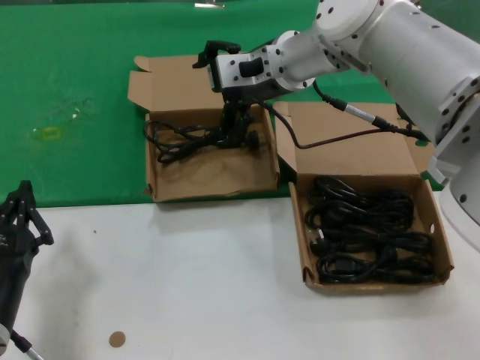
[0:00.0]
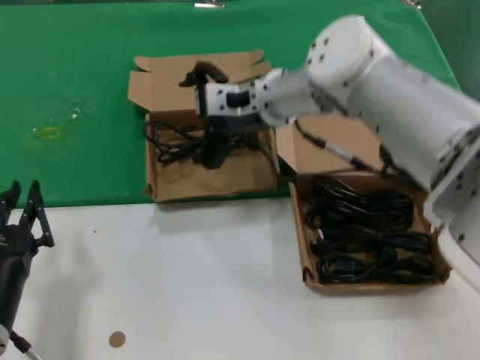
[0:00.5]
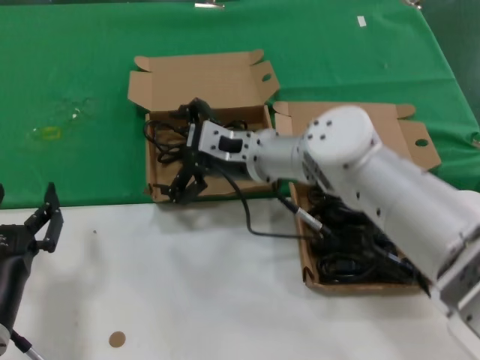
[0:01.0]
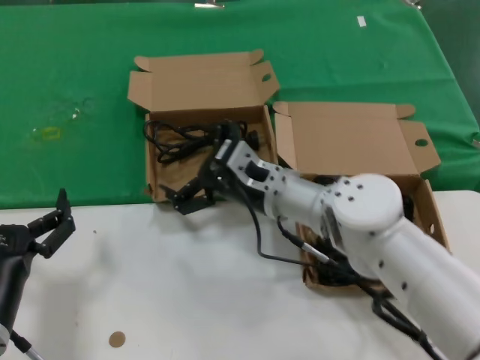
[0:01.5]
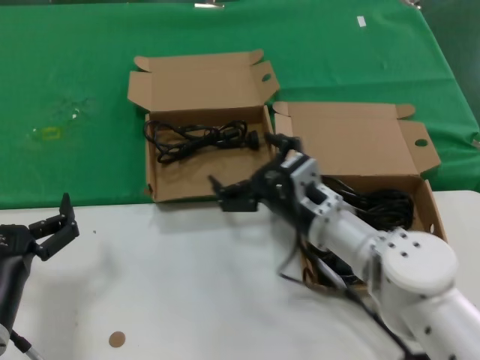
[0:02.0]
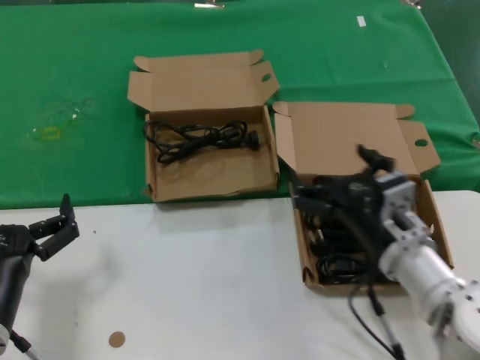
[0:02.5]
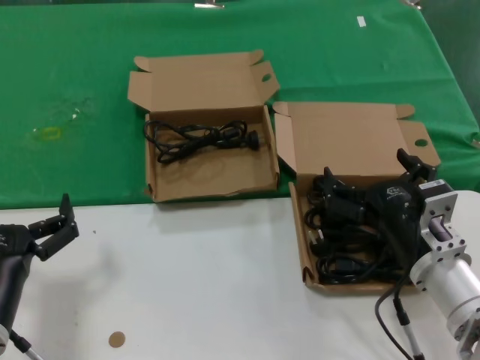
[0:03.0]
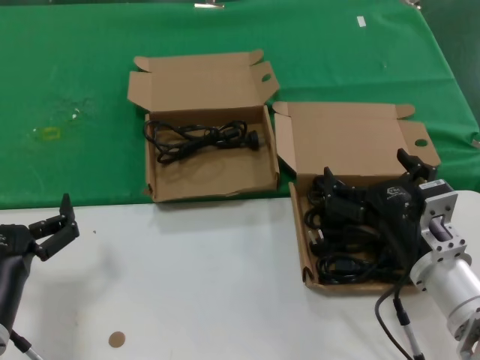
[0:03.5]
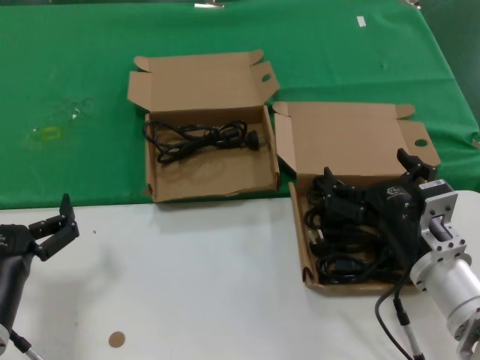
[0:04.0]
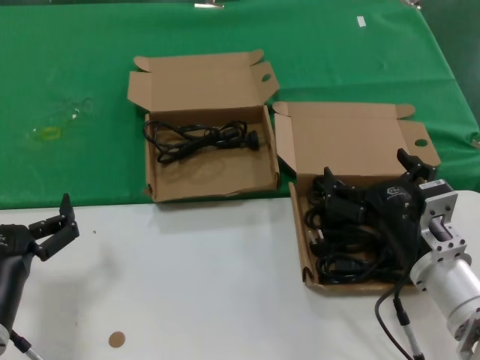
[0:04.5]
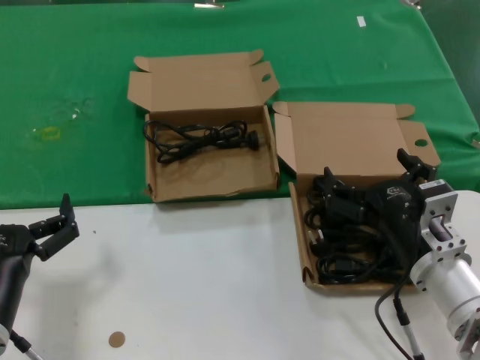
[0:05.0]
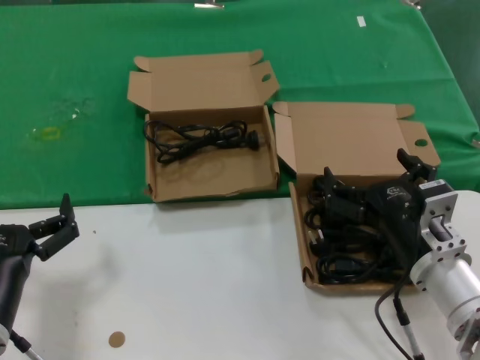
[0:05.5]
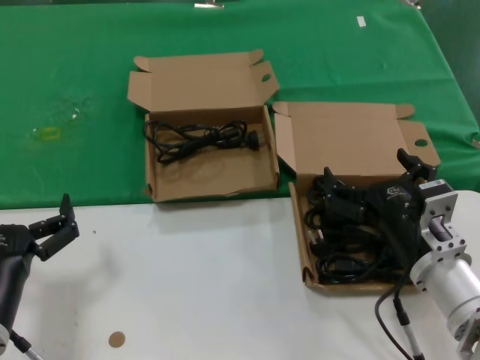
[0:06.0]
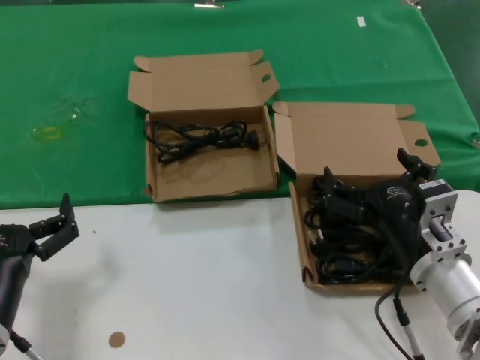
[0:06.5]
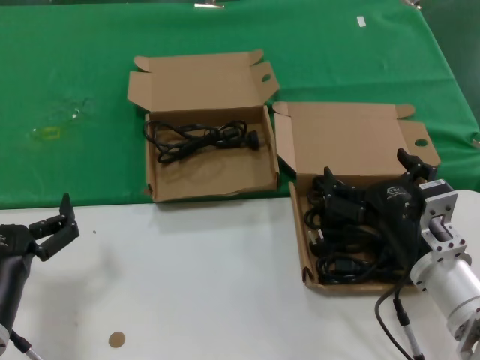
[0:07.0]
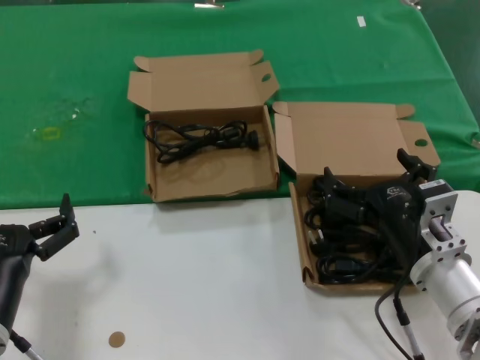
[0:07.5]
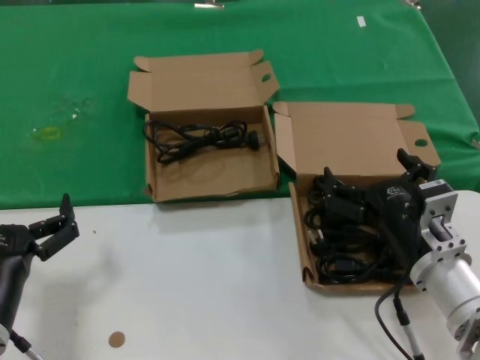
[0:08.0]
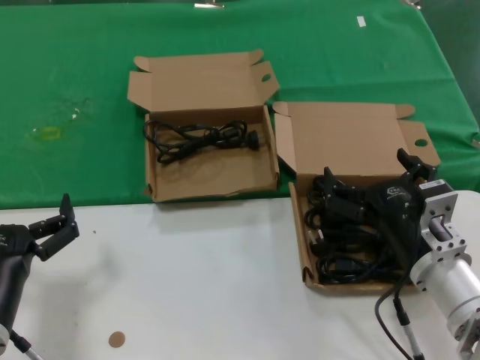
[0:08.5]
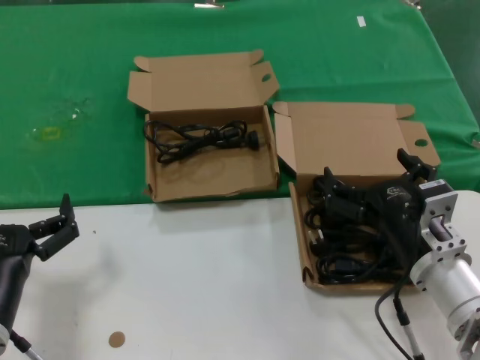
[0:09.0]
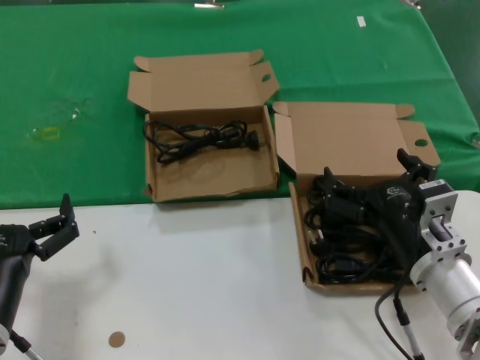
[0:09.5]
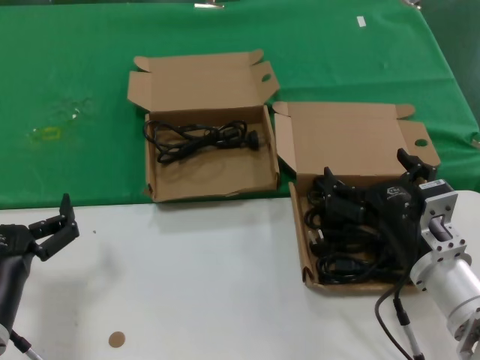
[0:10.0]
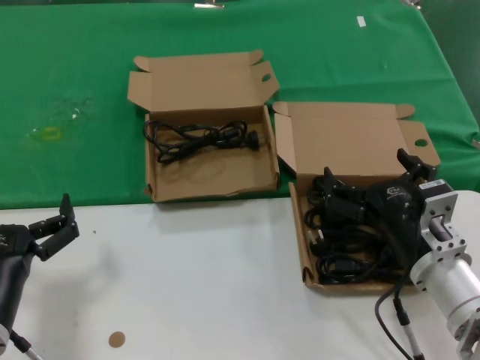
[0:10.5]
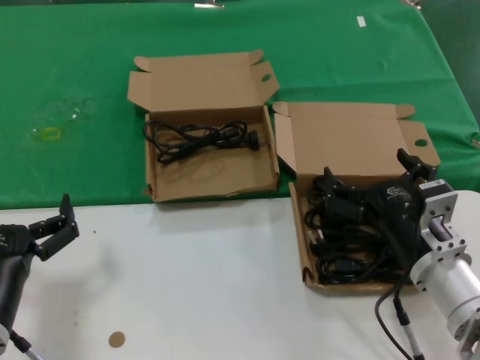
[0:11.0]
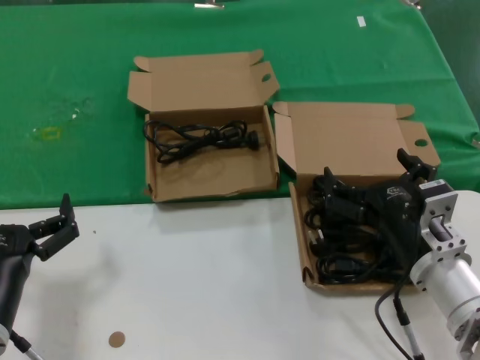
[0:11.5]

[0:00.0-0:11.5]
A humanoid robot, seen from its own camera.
Task of the whole recording: take the parts from the box containing them and put them into an empty box.
0:00.0 to 0:02.0: The right hand moves downward and backward, roughly 25 cm.
0:02.0 to 0:04.0: The right hand moves backward and to the right, about 15 cm.
0:04.0 to 0:11.5: Neither hand changes place.

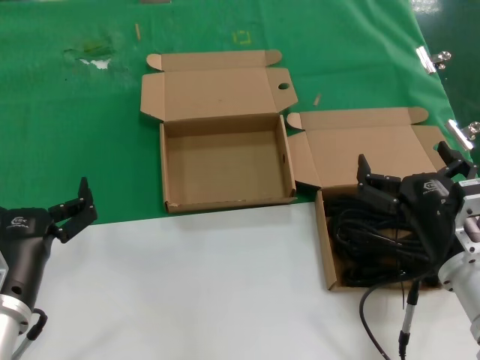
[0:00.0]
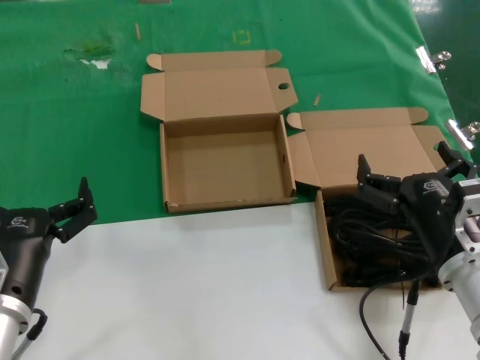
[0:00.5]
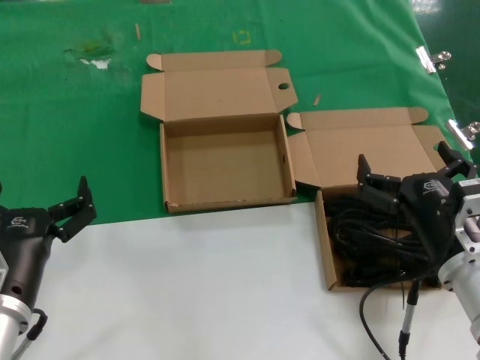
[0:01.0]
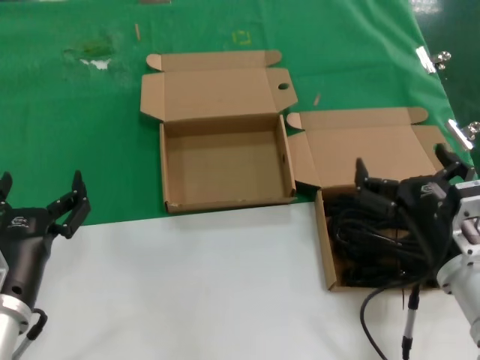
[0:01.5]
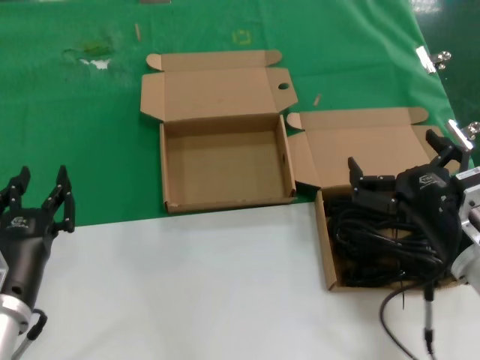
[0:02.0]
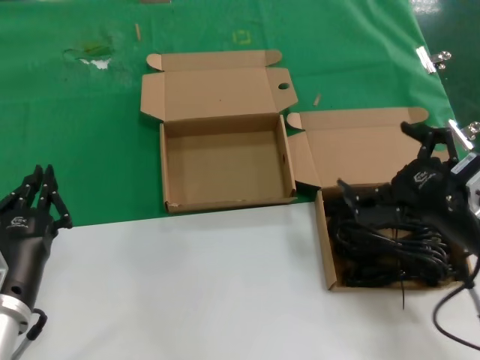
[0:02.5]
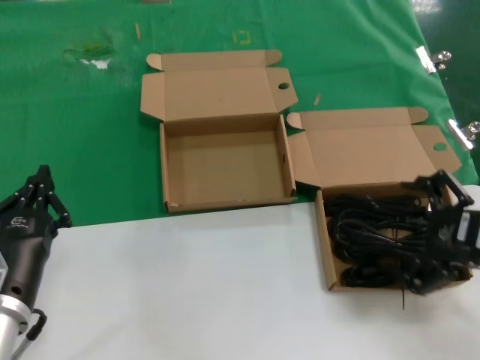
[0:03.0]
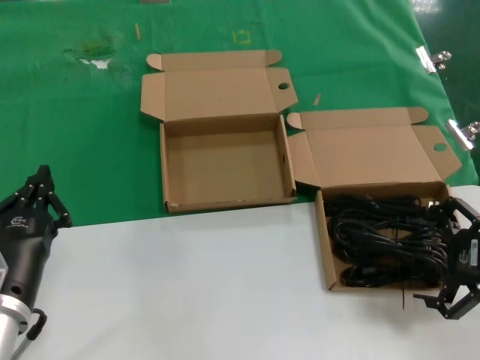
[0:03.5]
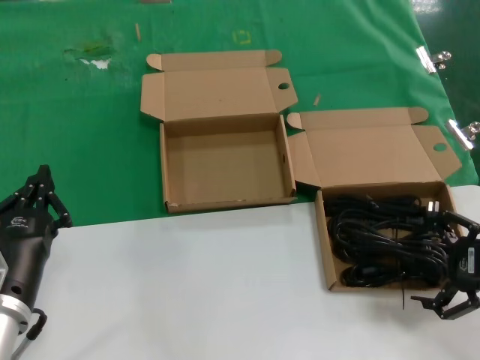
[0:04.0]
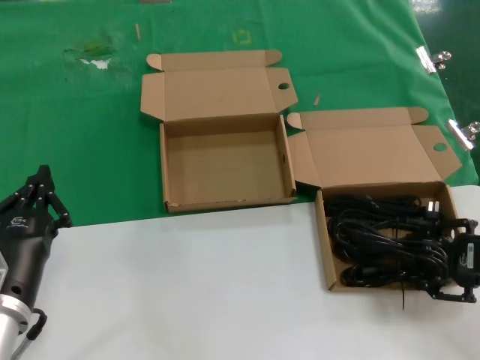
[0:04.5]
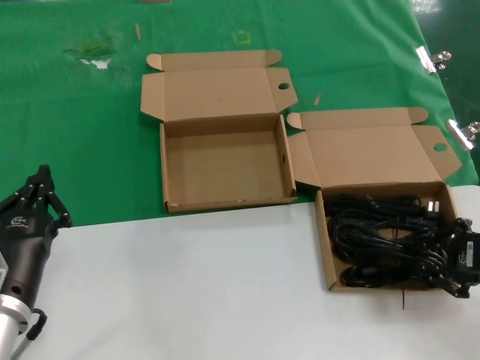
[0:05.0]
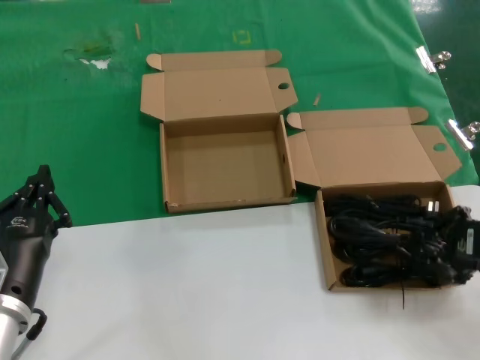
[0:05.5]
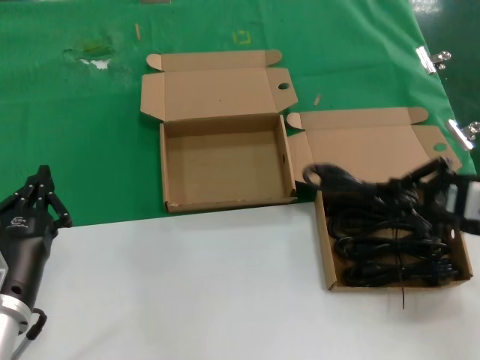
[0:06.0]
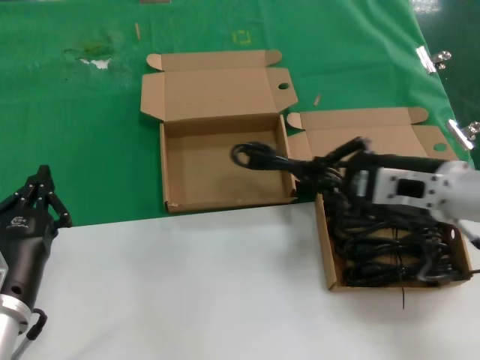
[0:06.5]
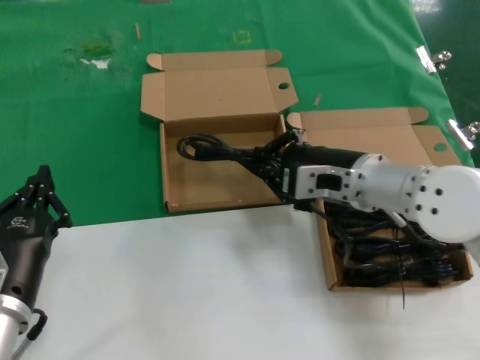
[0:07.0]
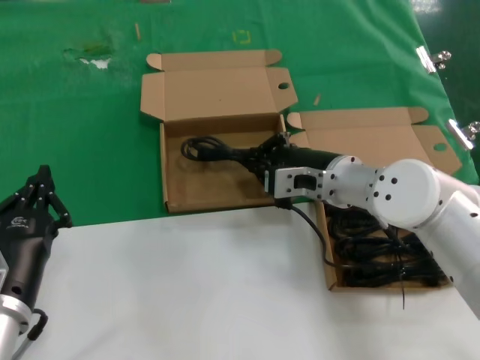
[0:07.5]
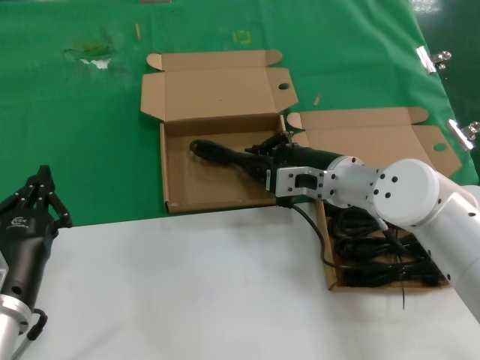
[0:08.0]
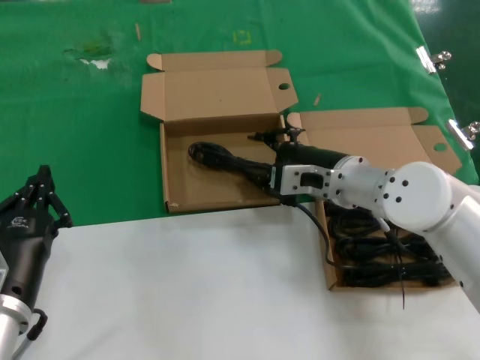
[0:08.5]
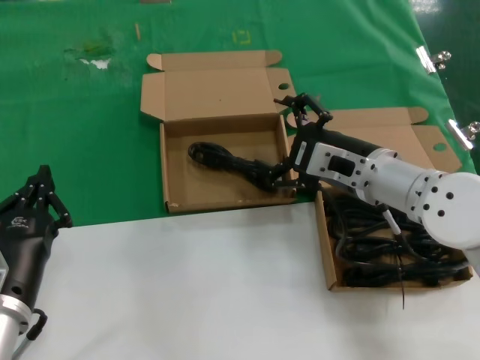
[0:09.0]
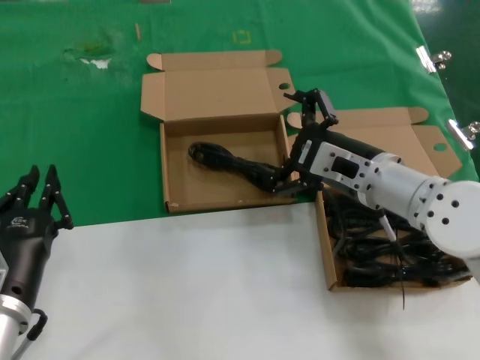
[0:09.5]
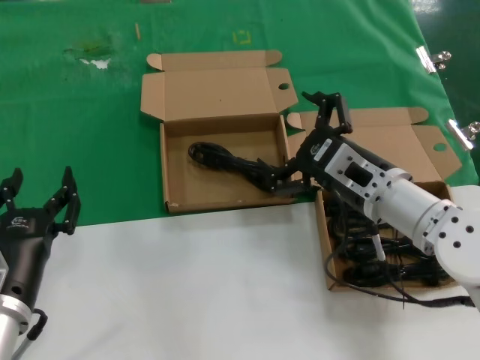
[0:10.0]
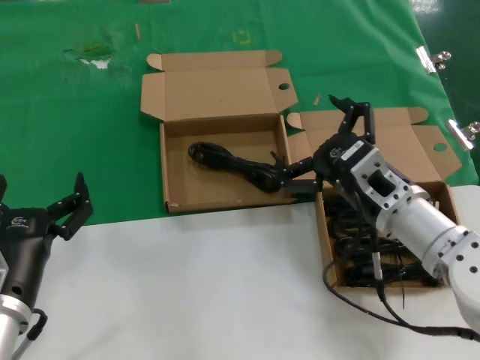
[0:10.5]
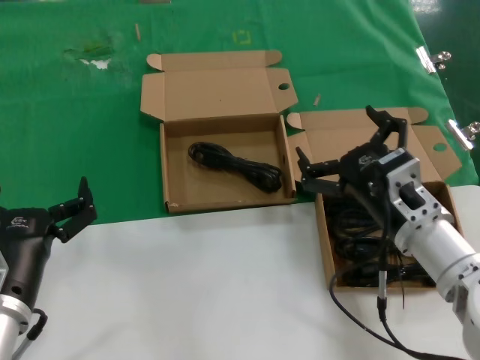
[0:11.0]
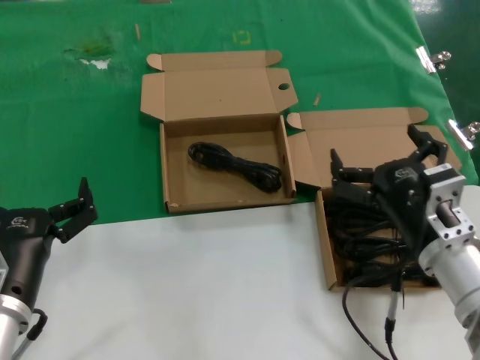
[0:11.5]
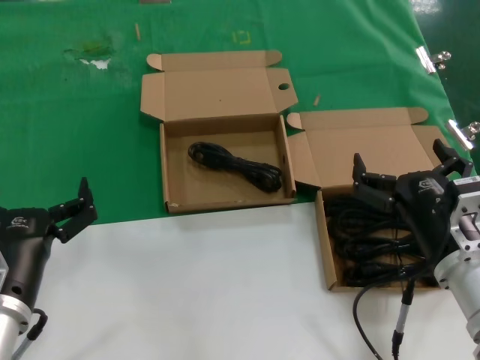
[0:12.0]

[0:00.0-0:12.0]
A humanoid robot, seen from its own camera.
Task of the whole recording: take the parts from the box containing them and put them into an empty box.
Step, 0:00.0 to 0:05.0: Grasp the data cable.
Step, 0:05.5 to 0:08.0: Place the data cable in the another box.
0:00.0 to 0:02.0: The hands stay close to where they were, moving slightly.
0:02.0 to 0:04.0: The right hand is displaced to the right and upward by approximately 15 cm.
0:04.0 to 0:06.0: The right hand moves some 5 cm.
0:06.0 to 0:08.0: The right hand shifts approximately 25 cm to the left, forward and downward.
0:08.0 to 0:10.0: The right hand is displaced backward by about 10 cm.
0:10.0 to 0:12.0: The right hand shifts about 10 cm backward and downward.

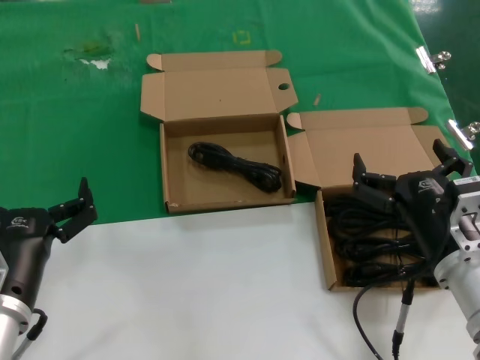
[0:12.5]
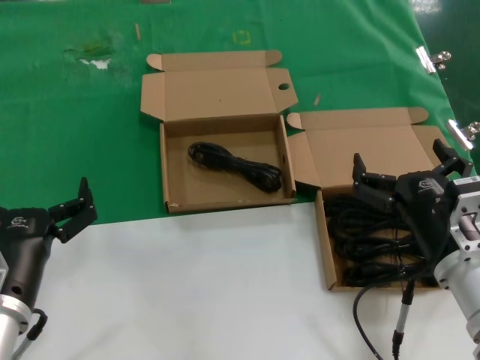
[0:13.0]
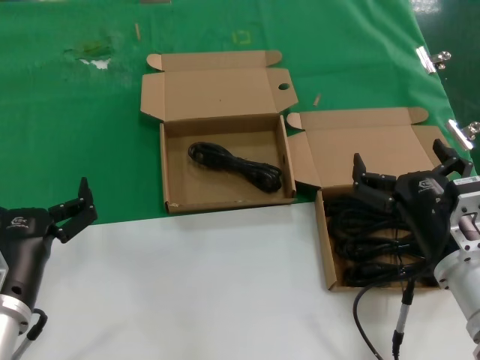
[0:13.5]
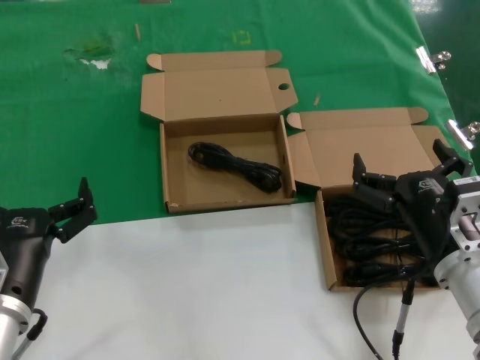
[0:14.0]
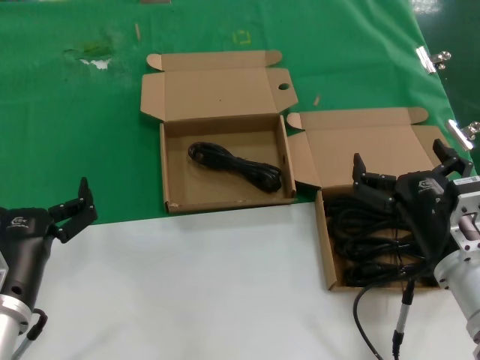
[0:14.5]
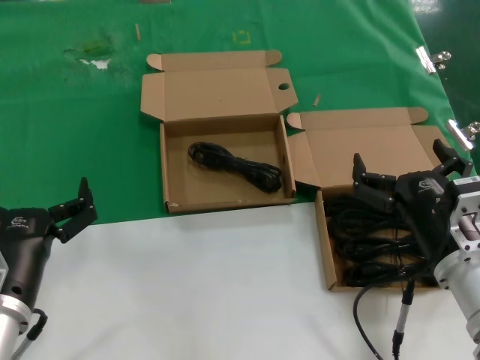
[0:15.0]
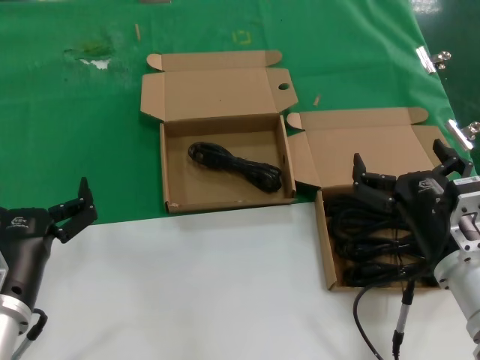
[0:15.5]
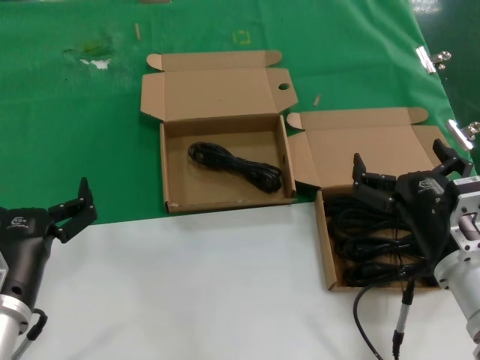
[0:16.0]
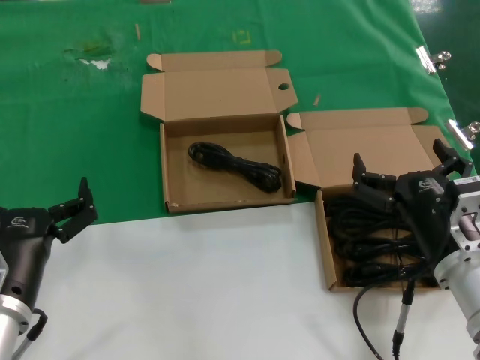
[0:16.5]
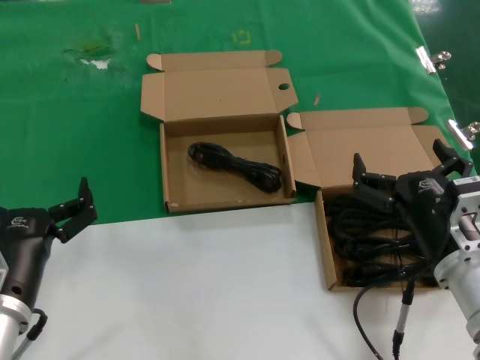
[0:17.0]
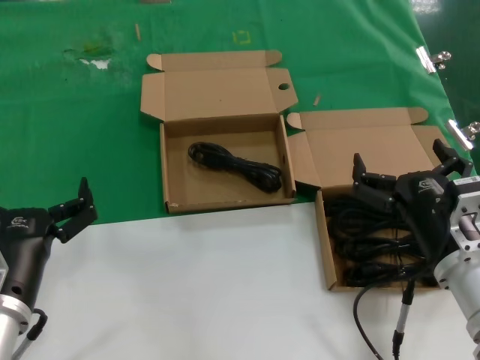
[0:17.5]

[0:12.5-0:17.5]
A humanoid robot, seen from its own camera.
Task of the whole recording: take the parts from the box containing them and put them into an empty box.
0:12.5 to 0:17.5: The two hands keep their place.
